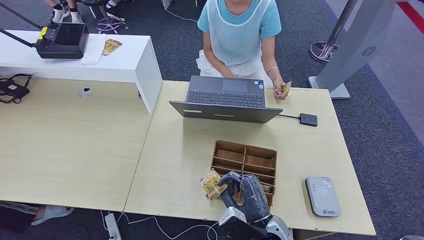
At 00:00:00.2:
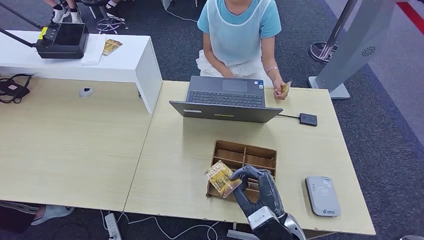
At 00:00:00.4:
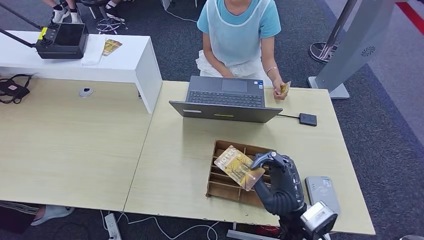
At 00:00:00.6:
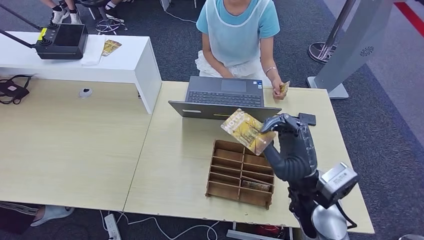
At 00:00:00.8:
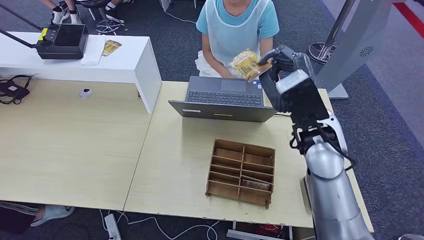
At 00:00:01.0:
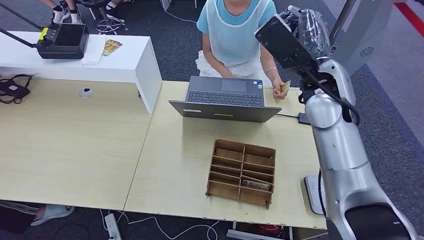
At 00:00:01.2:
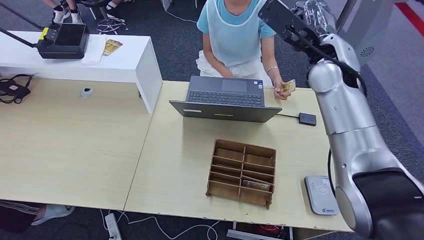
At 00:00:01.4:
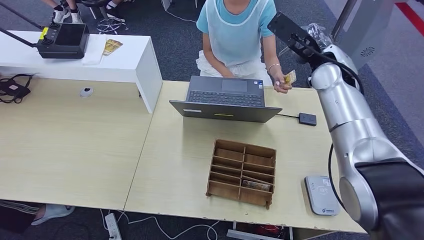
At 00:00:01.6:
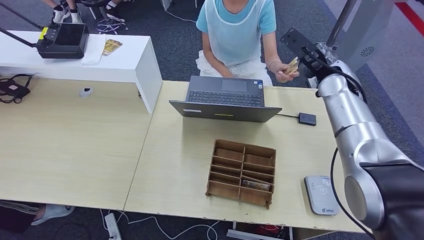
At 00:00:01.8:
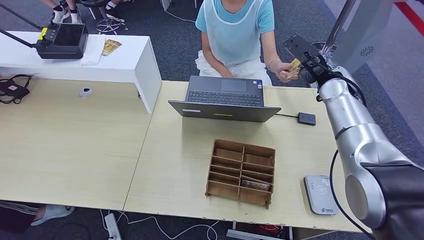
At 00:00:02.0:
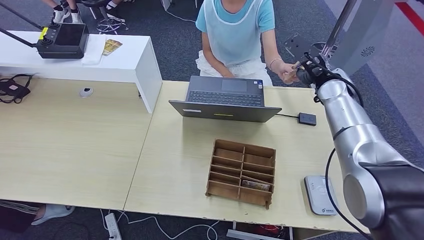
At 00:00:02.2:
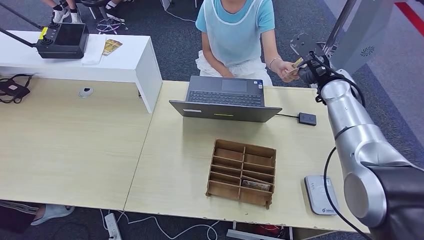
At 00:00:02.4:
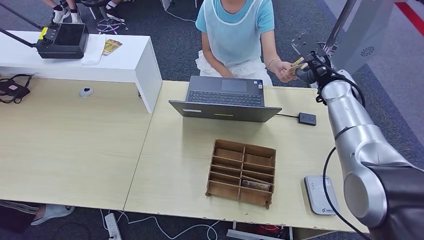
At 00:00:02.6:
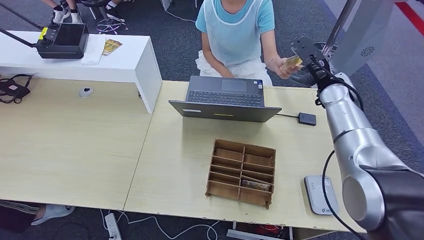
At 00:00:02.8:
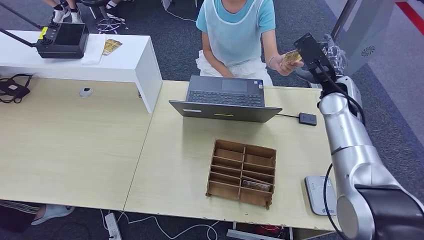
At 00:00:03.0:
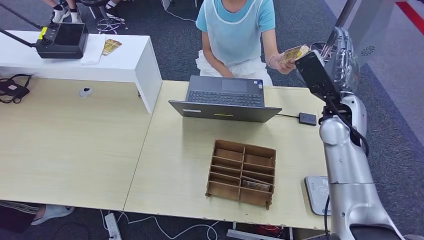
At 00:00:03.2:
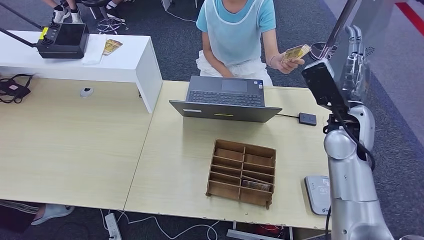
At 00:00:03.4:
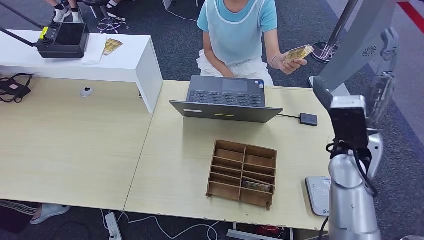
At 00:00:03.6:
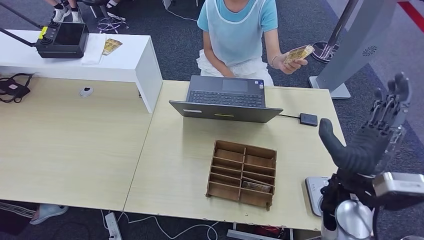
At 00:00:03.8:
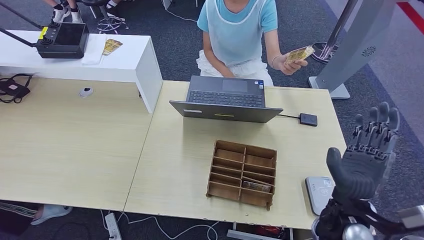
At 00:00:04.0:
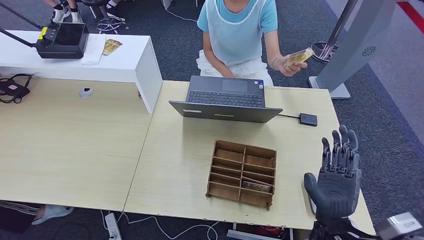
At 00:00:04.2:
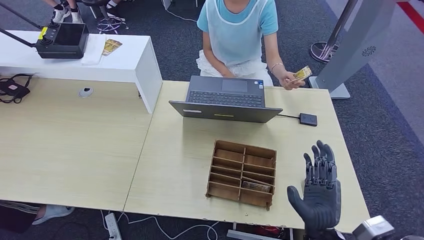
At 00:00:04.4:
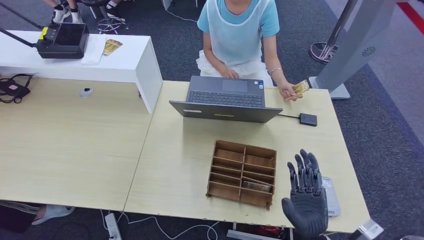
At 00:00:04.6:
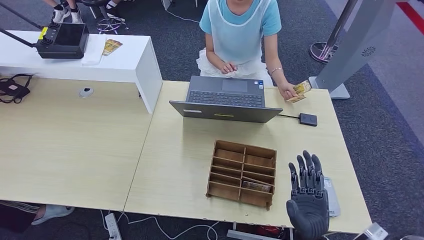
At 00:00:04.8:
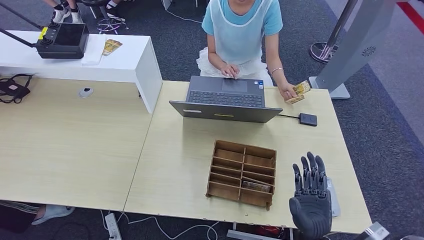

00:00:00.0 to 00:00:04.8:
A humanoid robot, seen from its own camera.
Step, 00:00:01.8 to 00:00:04.6: Hand the room key to the person.
00:00:00.0 to 00:00:01.6: The right hand travels forward, upward and to the right by approximately 40 cm.
00:00:01.6 to 00:00:03.2: The right hand moves backward, about 10 cm.
00:00:03.2 to 00:00:04.8: The right hand moves backward and downward, roughly 30 cm.
